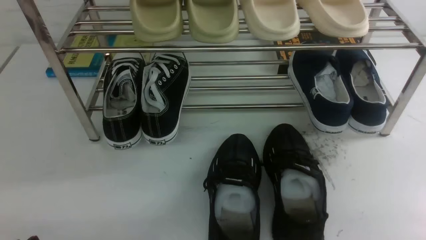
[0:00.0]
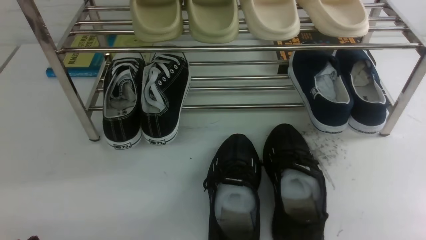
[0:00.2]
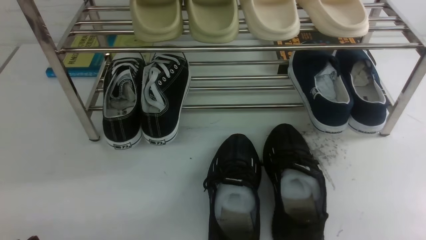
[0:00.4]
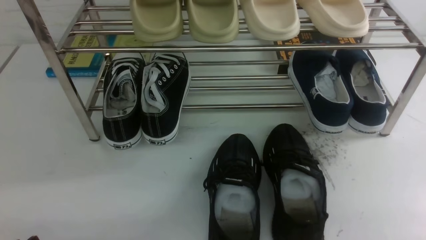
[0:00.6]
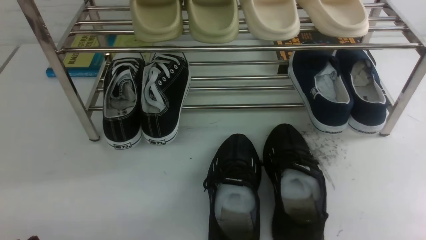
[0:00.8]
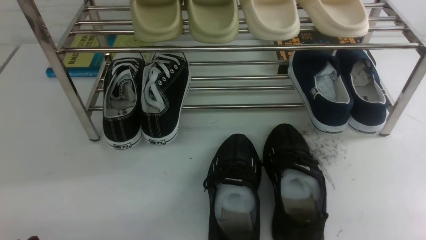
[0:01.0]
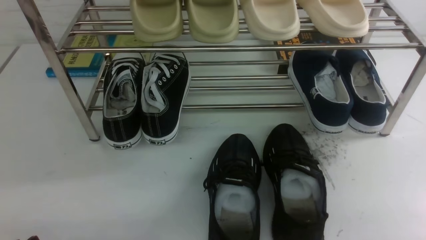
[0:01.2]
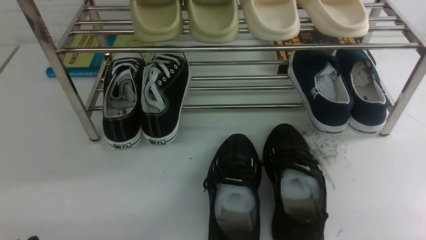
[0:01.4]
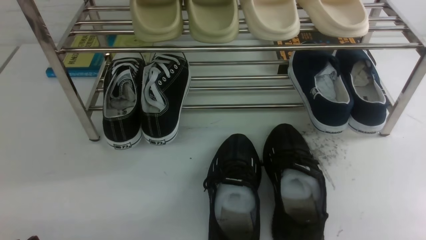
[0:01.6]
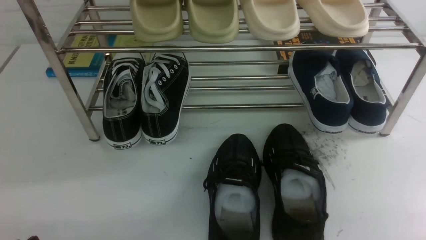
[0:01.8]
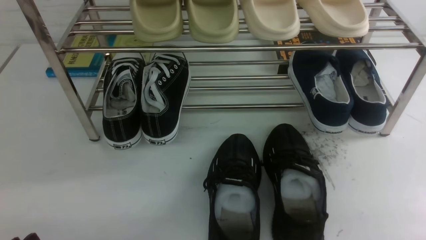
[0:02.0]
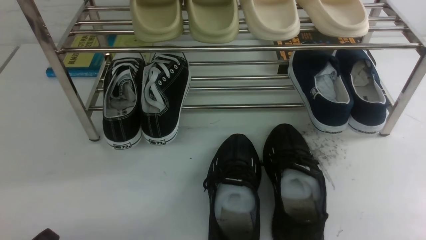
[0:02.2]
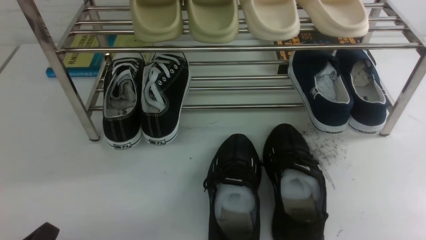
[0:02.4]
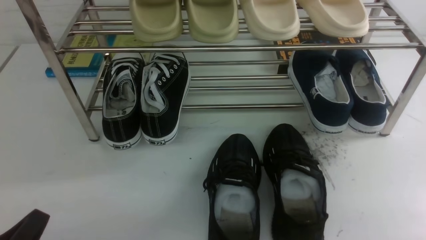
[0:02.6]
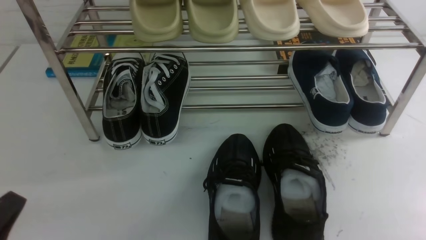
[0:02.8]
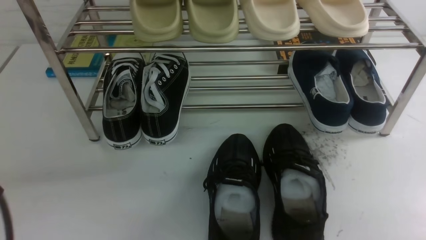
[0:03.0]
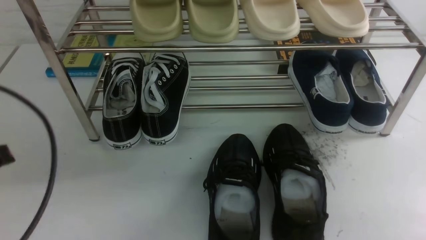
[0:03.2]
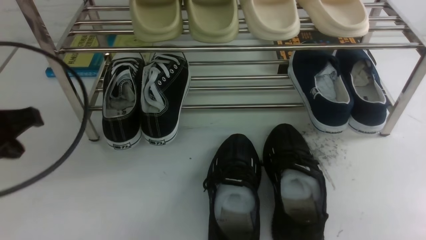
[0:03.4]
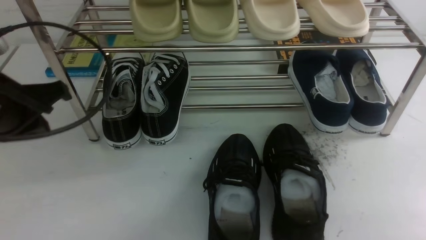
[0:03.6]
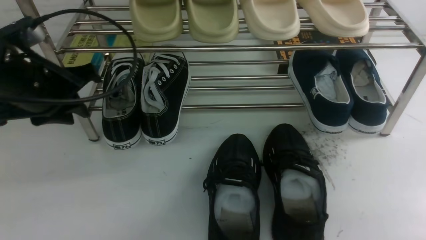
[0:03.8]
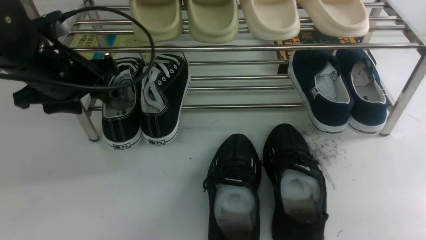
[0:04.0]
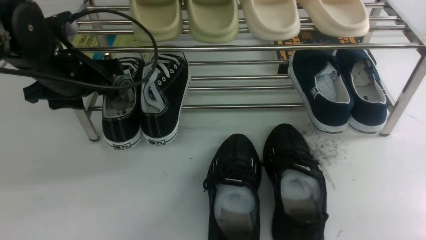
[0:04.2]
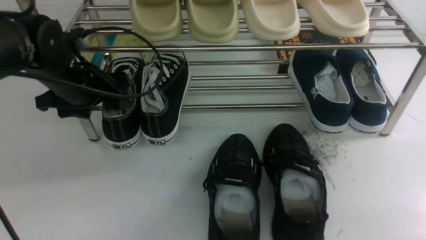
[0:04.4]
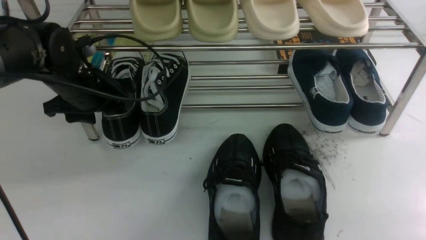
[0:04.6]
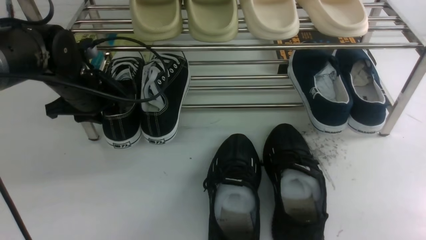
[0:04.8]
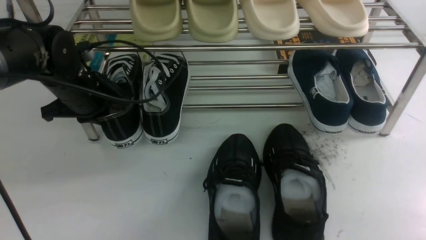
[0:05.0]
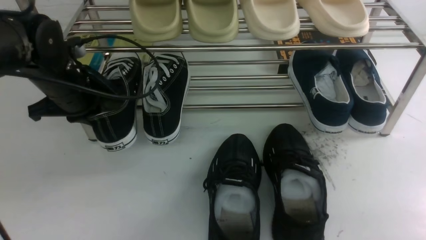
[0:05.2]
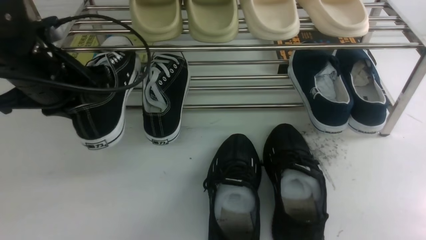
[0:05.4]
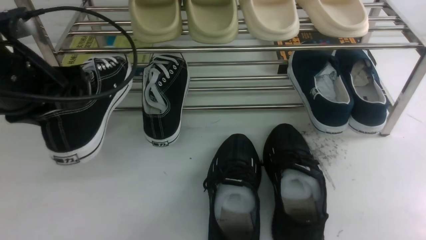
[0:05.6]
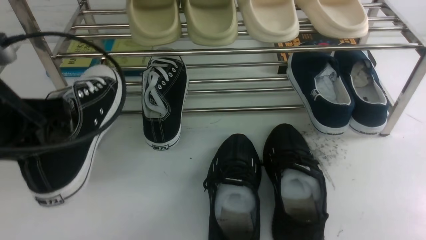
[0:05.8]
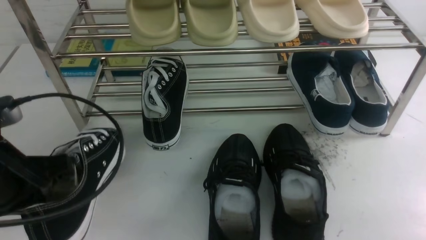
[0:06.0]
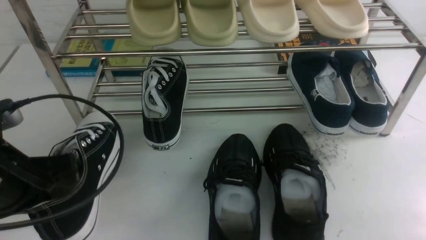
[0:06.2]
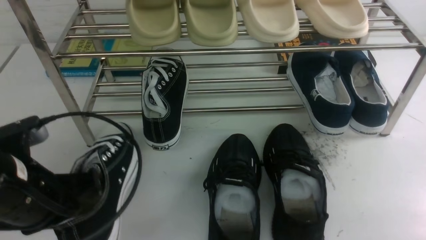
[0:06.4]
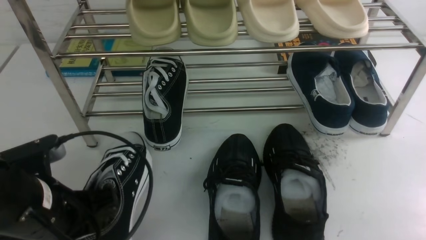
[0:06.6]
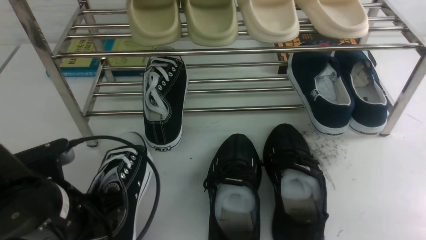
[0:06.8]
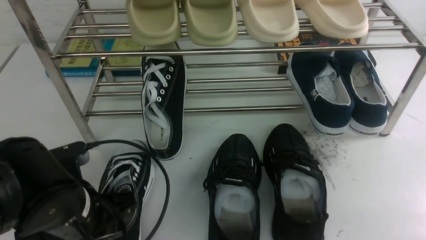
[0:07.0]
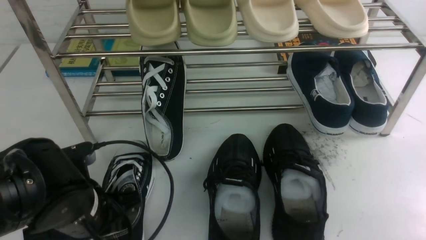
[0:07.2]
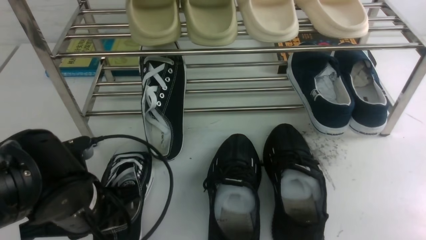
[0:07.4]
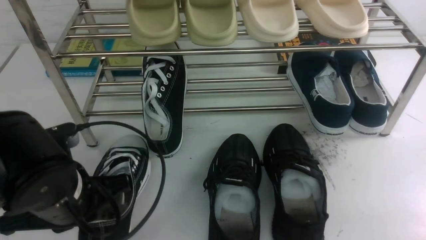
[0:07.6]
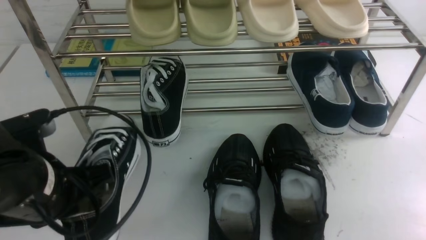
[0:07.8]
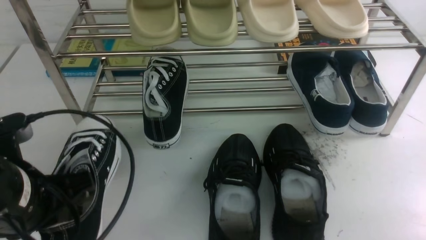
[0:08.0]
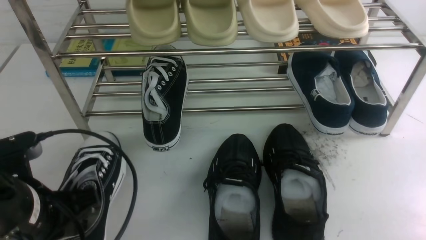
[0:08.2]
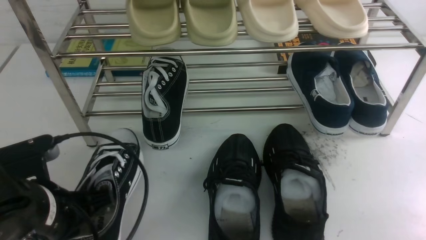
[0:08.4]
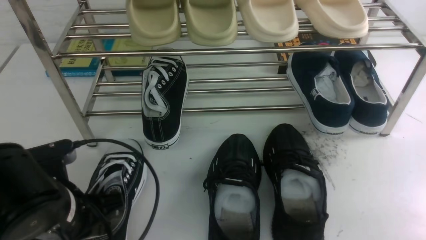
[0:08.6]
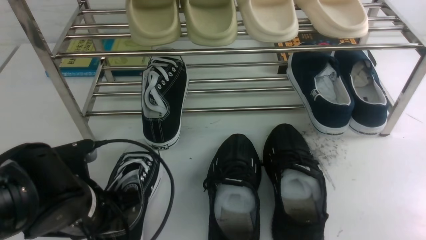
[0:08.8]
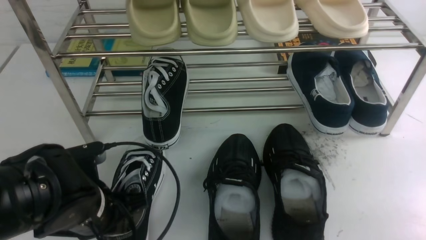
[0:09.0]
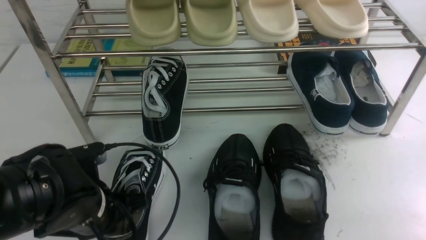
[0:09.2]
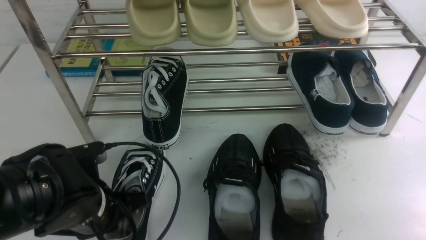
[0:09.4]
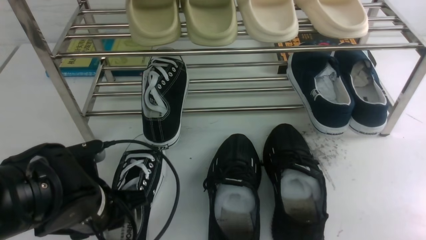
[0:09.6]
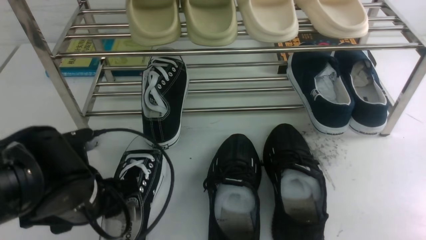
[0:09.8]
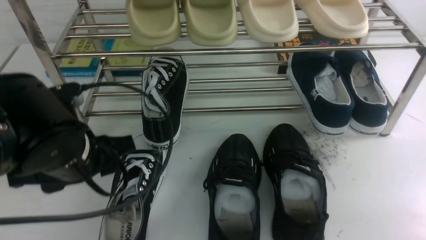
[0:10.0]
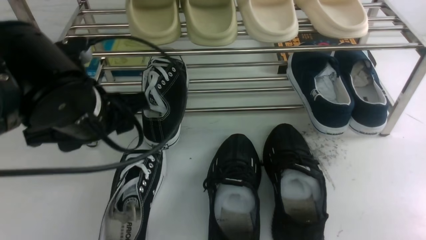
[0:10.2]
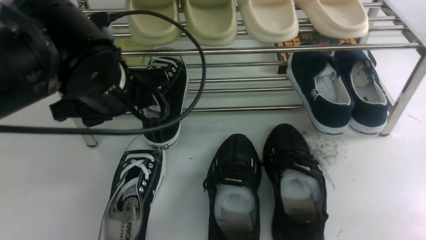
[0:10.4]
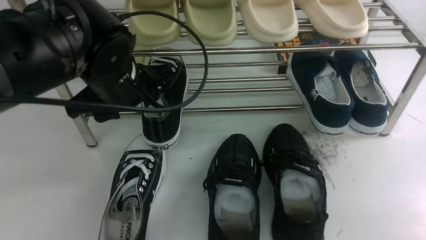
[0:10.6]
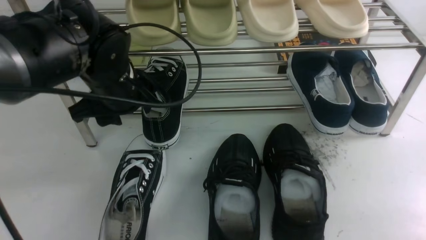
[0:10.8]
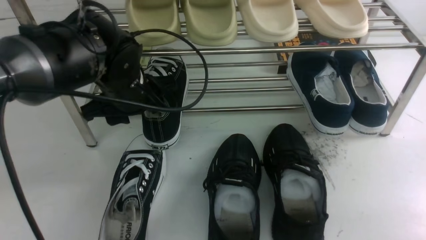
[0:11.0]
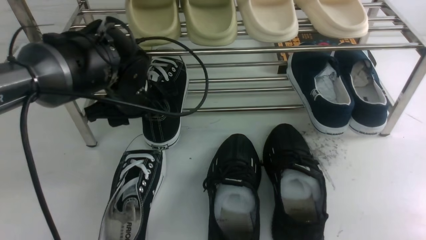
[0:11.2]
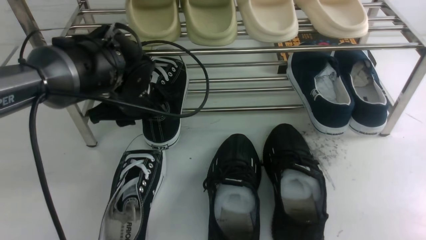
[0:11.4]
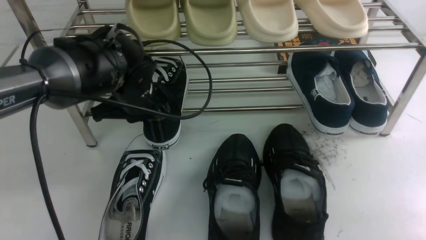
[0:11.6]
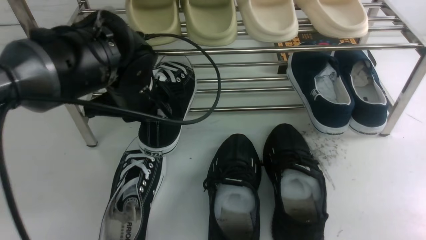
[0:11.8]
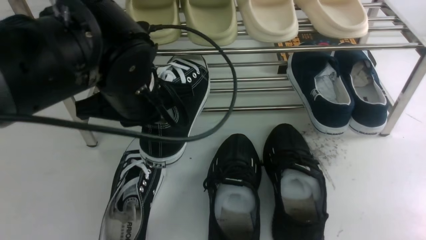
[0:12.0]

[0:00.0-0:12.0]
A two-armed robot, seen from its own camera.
Step, 0:00.0 to 0:05.4: use the left arm to clamp a shoe on the left side of the shoe rack.
Step, 0:05.6 to 0:09.8: Use your left arm to remove the clamped shoe from the shoe rack and put it down.
Step, 0:10.0 to 0:12.0: use the left arm to clamp a shoe on the left side of the shoe rack.
0:00.0 to 0:01.6: Neither gripper changes place.
0:03.0 to 0:04.4: The left gripper moves forward, roughly 30 cm, and opens up.
0:04.4 to 0:06.0: The left gripper moves backward, some 15 cm, and closes its fingers.
0:06.0 to 0:07.6: The left gripper travels to the right and downward by about 10 cm.
0:07.6 to 0:09.0: The left gripper travels downward by approximately 5 cm.
0:09.0 to 0:10.4: The left gripper is displaced upward and forward by some 15 cm, and opens.
0:10.4 to 0:12.0: The left gripper moves approximately 10 cm forward and comes back, and closes its fingers.

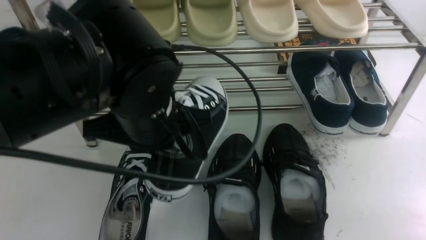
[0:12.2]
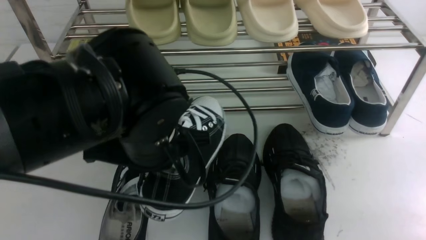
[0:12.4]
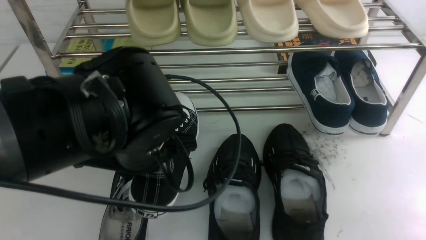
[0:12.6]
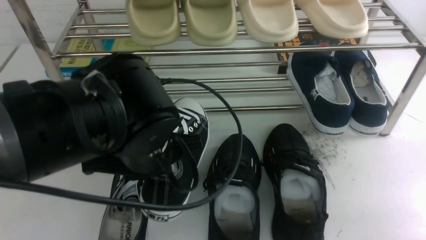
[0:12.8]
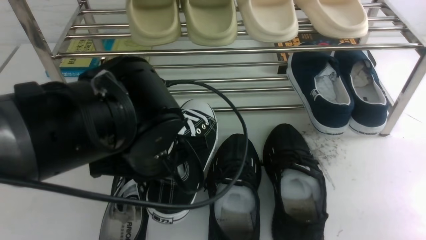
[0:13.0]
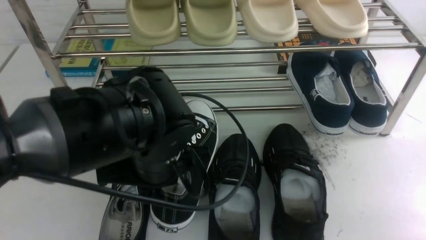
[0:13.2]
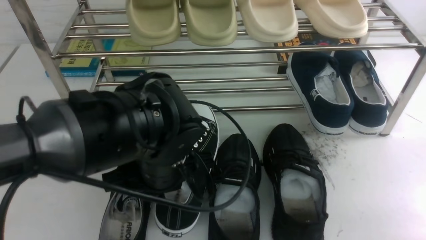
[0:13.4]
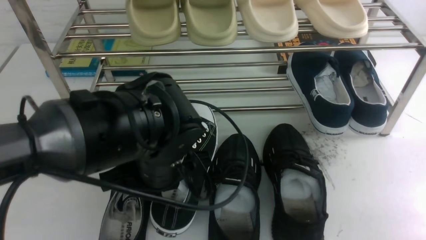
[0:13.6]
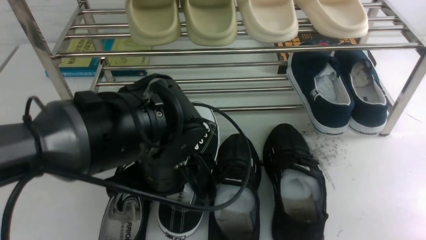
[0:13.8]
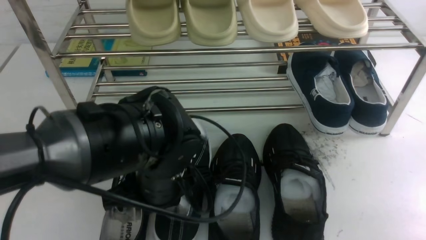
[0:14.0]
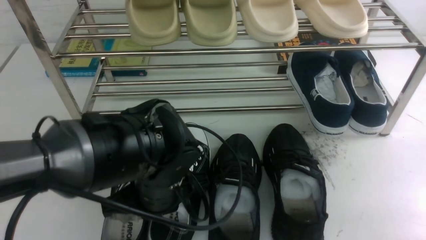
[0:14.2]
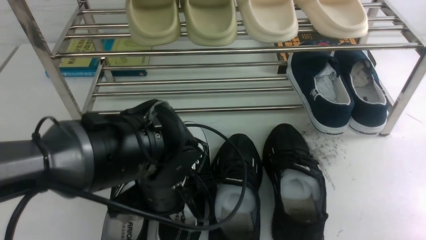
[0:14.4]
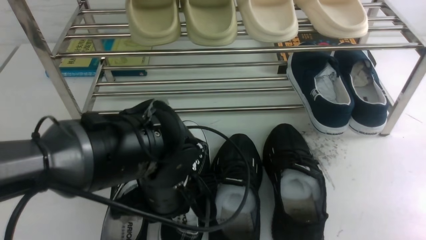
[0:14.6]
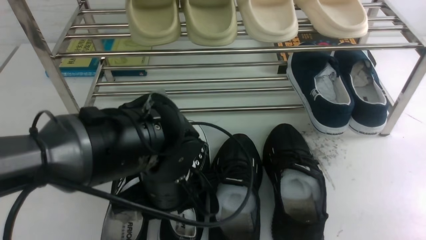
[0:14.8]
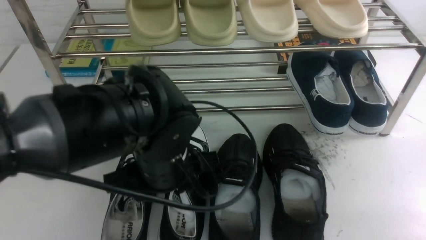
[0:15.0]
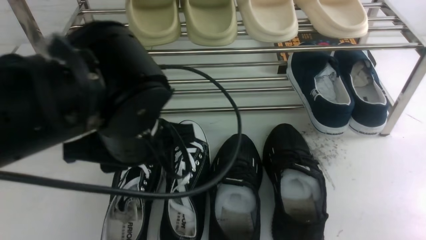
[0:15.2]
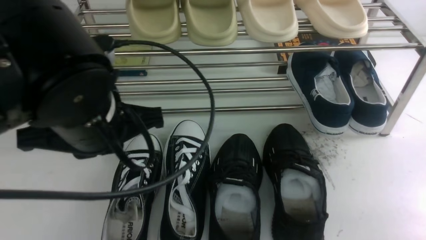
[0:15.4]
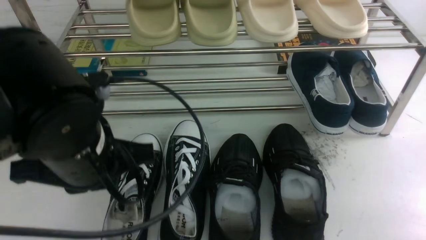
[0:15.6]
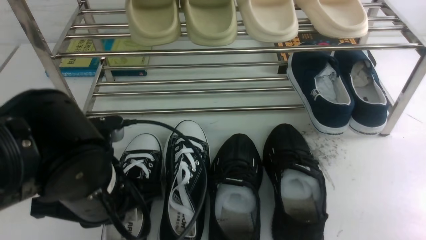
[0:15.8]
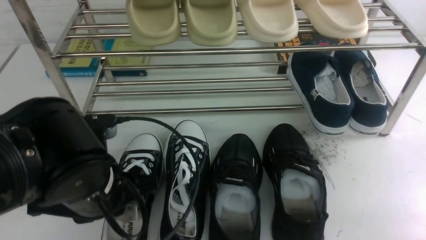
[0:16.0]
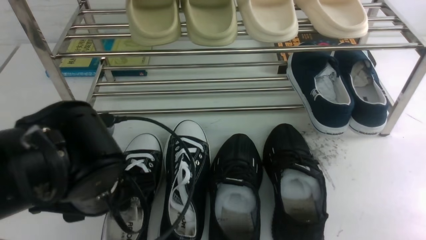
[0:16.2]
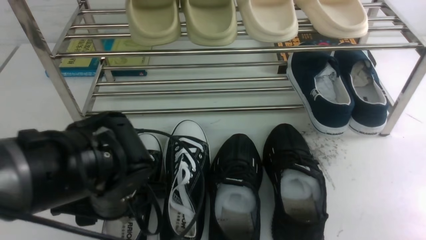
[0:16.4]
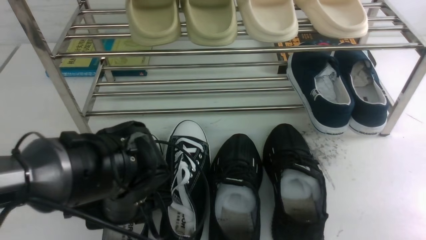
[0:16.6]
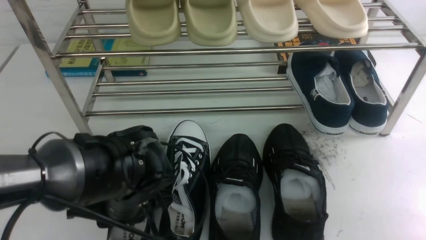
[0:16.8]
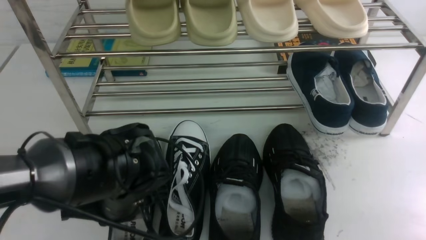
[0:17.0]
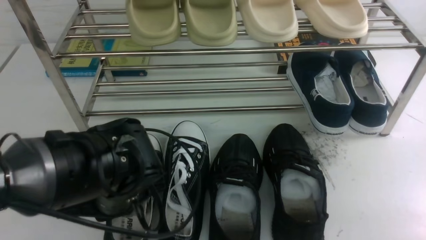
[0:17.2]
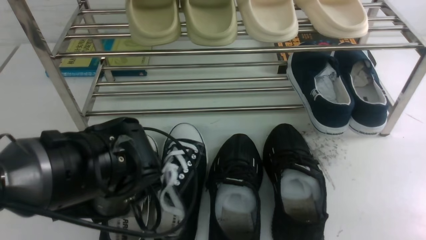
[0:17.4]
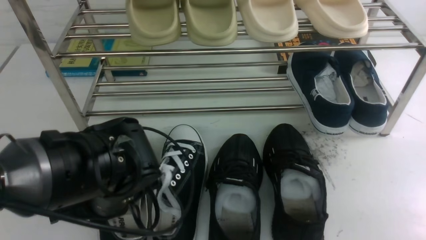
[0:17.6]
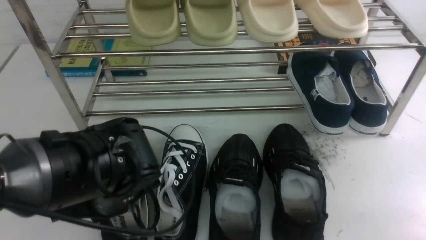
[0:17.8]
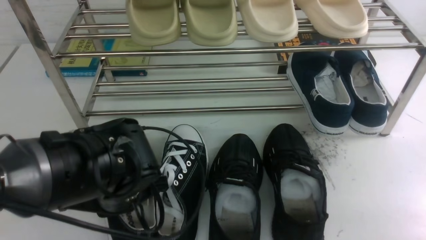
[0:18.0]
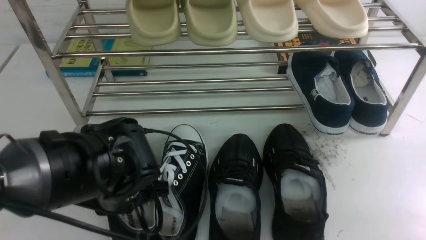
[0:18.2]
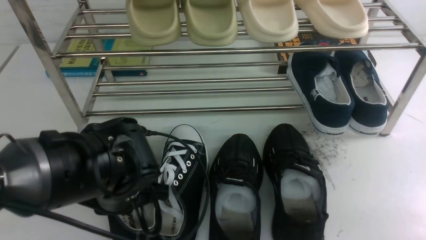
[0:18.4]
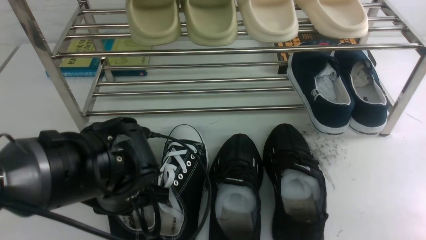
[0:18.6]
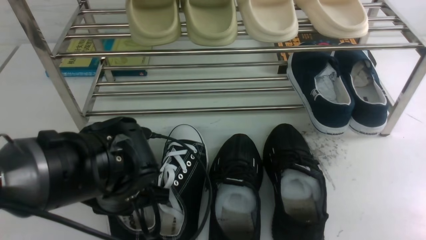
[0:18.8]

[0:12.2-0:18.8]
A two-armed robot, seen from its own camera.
Step, 0:12.2 to 0:15.2: Use your left arm to remove the clamped shoe from the shoe rack and put it down.
0:12.2 to 0:13.8: The left gripper is displaced downward by about 10 cm.
0:13.8 to 0:15.4: The left gripper goes approximately 10 cm upward and to the left, and opens, then closes once more.
0:15.4 to 0:17.2: The left gripper heads downward, covering some 10 cm, and opens and closes again.
